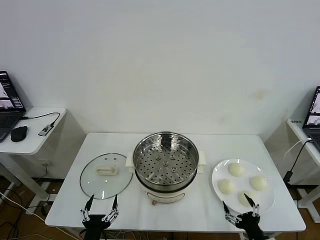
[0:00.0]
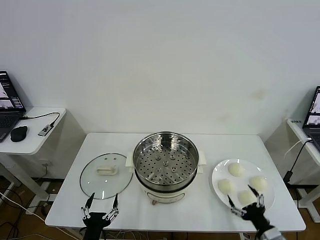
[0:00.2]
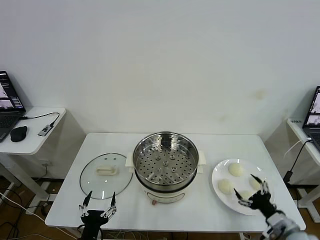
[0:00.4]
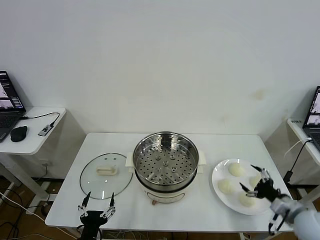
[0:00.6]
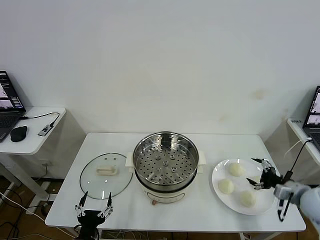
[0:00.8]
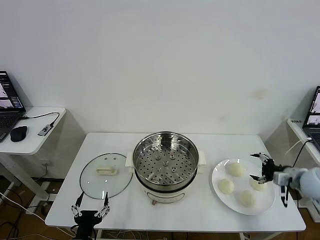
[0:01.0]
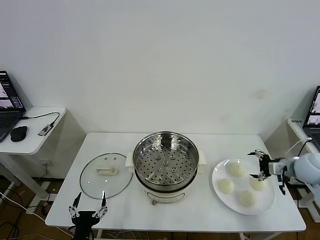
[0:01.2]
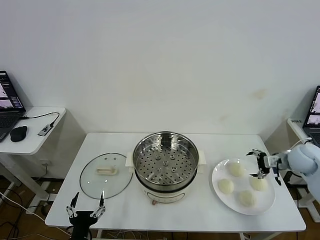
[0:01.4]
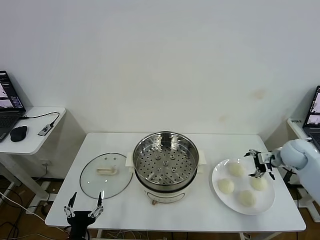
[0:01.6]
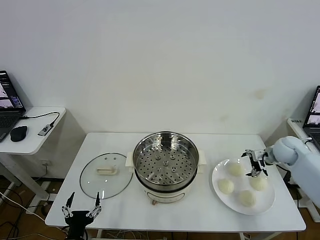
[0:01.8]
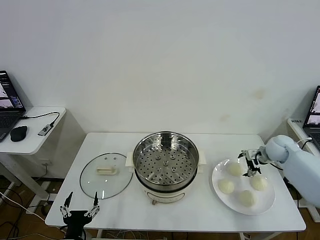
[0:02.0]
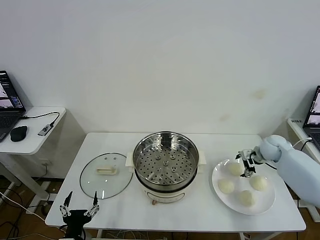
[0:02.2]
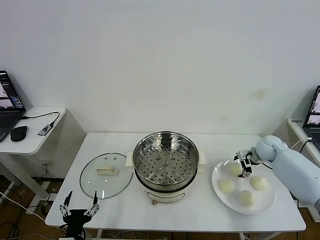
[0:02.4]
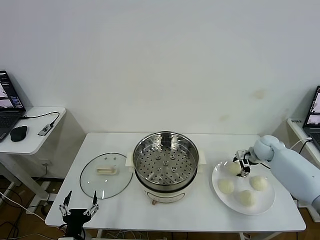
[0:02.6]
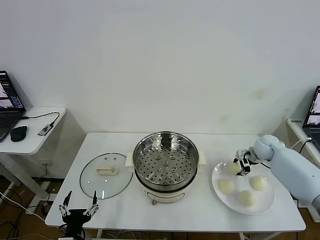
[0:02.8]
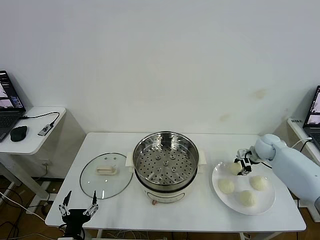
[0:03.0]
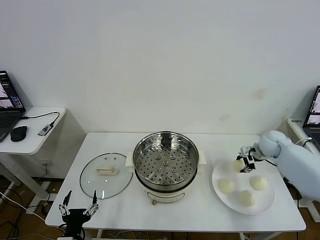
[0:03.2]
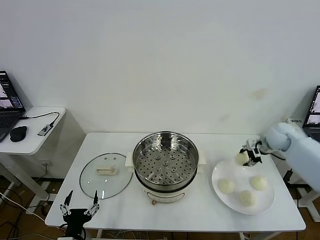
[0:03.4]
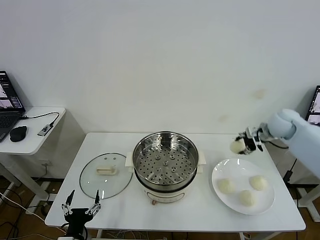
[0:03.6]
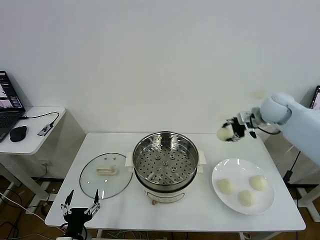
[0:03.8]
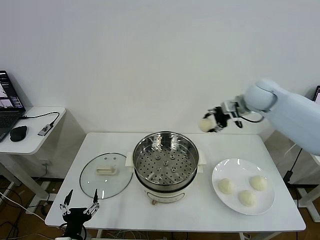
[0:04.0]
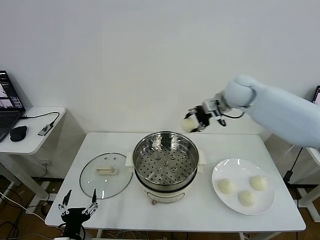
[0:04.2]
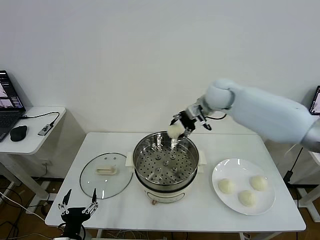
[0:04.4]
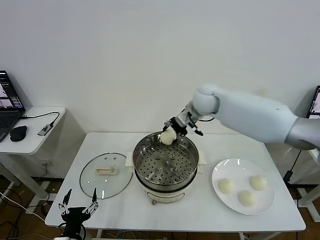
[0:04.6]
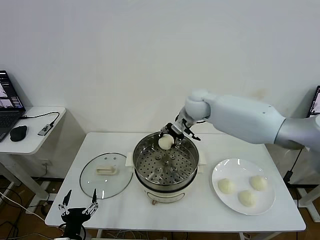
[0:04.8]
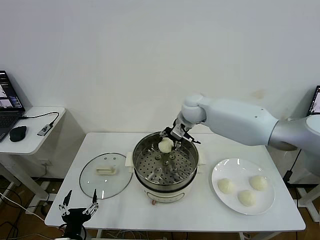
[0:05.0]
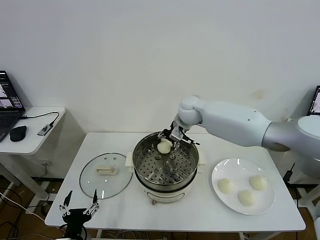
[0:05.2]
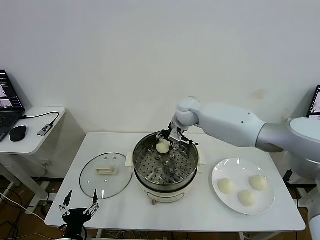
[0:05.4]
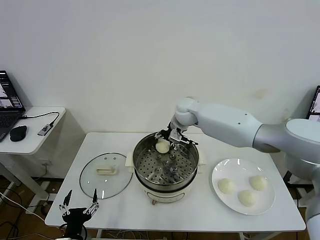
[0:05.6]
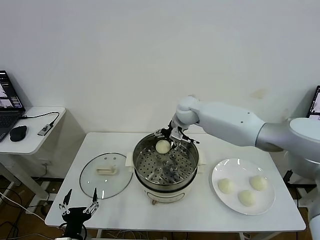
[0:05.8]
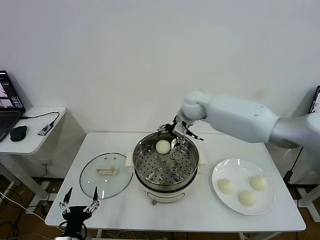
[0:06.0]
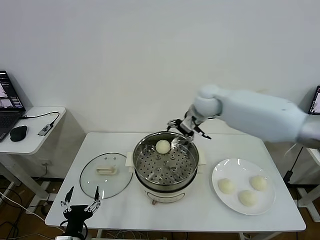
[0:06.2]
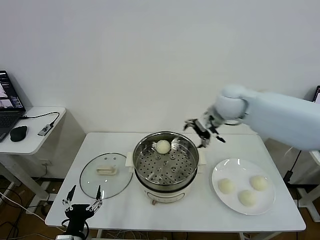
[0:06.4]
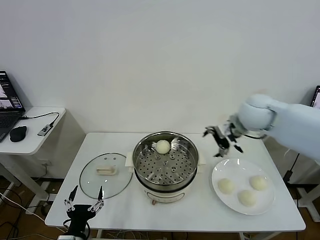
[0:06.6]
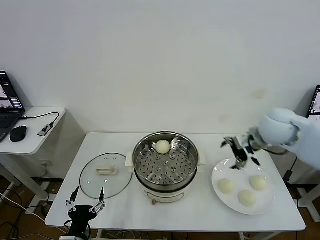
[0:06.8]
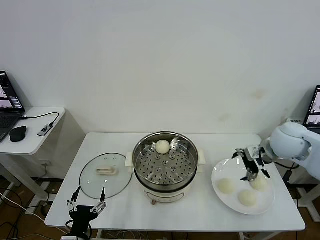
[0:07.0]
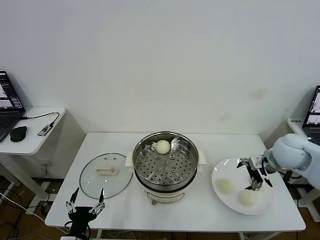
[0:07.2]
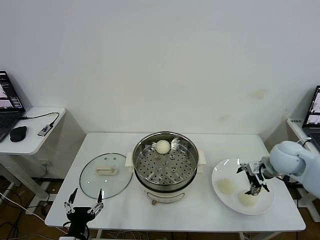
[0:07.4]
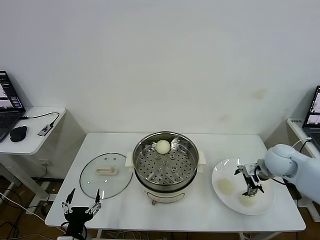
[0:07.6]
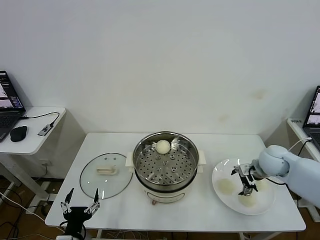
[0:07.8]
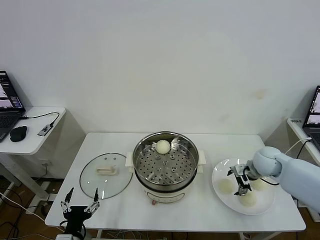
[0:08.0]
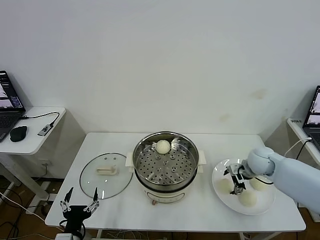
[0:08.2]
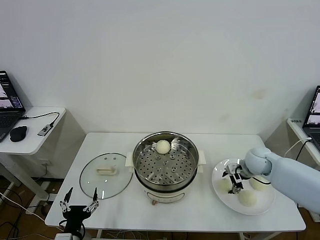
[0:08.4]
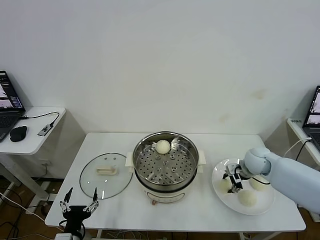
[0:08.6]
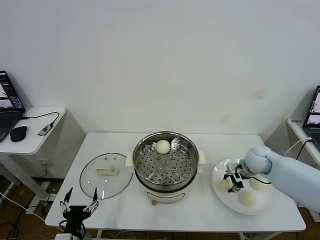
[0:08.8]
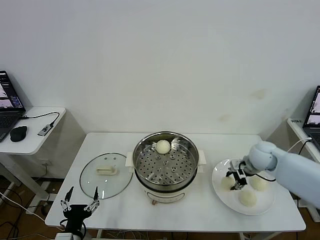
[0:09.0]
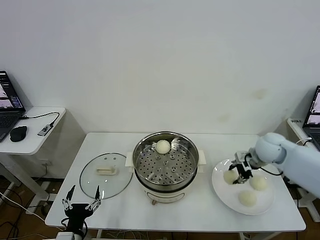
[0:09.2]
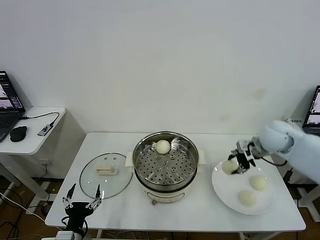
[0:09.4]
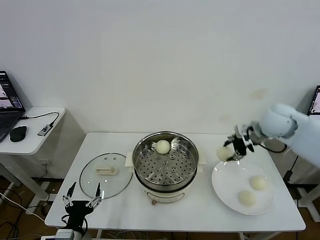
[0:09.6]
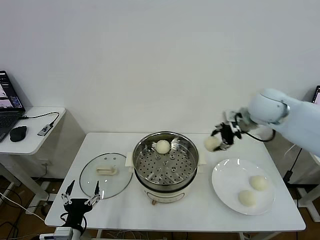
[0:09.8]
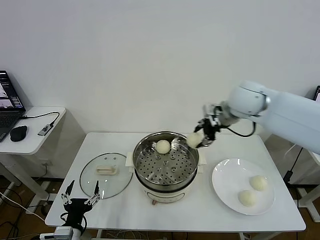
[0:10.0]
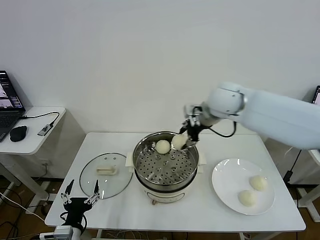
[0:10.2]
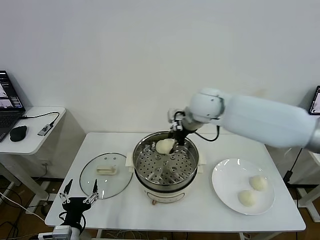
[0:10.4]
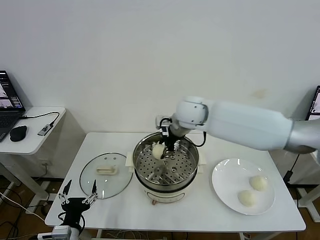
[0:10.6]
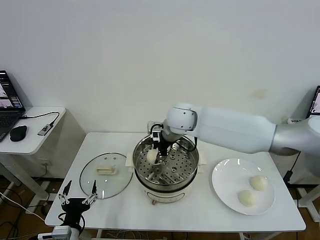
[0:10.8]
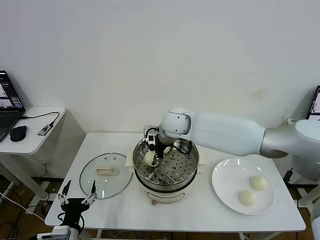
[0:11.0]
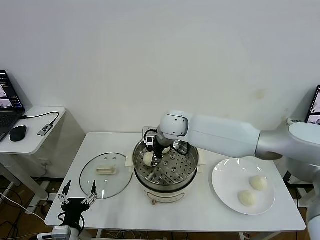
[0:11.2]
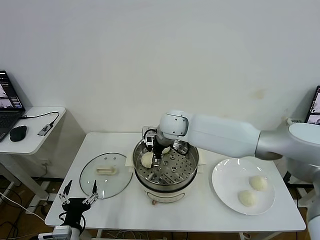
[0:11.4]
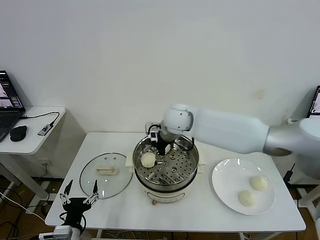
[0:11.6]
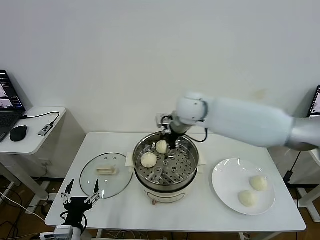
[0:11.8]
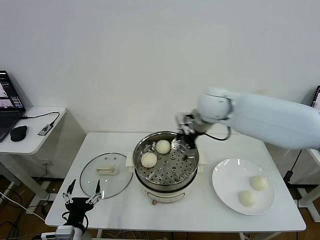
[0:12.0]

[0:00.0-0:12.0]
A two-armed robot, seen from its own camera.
Task of the whole recording: take steamed baozi put them in steamer then cover it.
Step, 0.0 to 2.6 s: Grasp the baozi in the plate with right gripper.
Step, 2.8 to 5.8 s: Place the baozi on the steamer with right gripper.
Step, 6.0 to 8.6 s: Grasp the baozi in the plate with right gripper.
Step, 8.8 to 11.4 s: Place the baozi on the steamer with right gripper.
1.6 to 3.0 s: The right gripper travels forward by approximately 5 cm, and closes its fingers.
3.0 to 4.4 s: The right gripper travels to the left and upward by some 30 cm.
4.4 to 6.0 s: The right gripper travels to the left by roughly 5 cm, and opens.
6.0 to 7.6 s: The right gripper is displaced to the right and backward by roughly 30 cm.
7.6 to 9.0 s: The right gripper changes place by approximately 5 cm, and closes its fingers.
9.0 to 10.4 s: The right gripper shifts about 30 cm to the left and upward.
10.4 to 12.0 s: The right gripper travels to the left and back again, about 10 cm each way, and opens up.

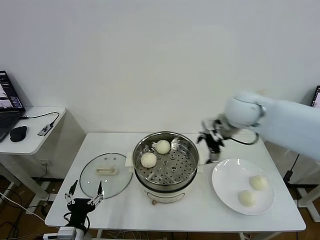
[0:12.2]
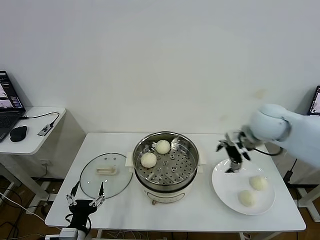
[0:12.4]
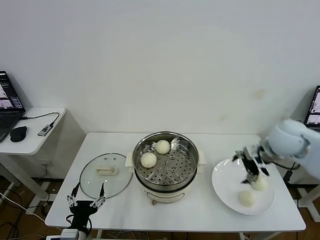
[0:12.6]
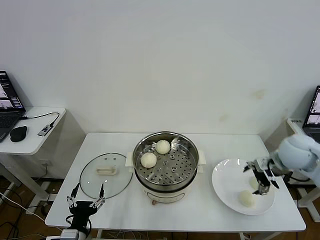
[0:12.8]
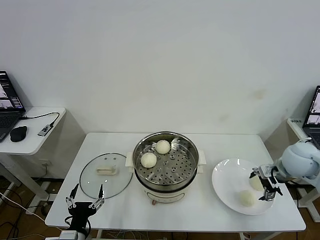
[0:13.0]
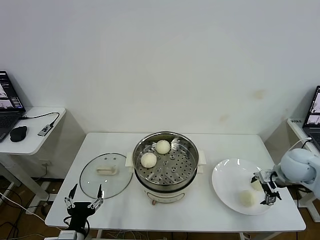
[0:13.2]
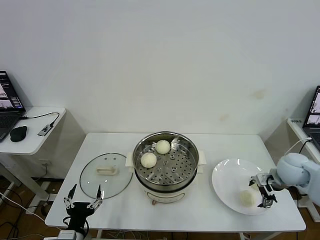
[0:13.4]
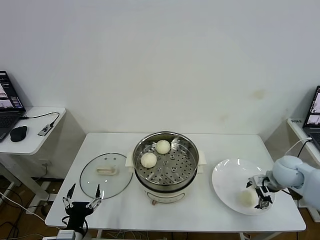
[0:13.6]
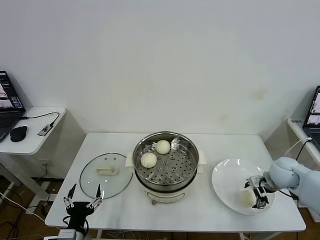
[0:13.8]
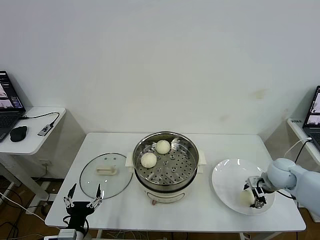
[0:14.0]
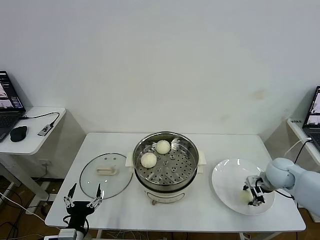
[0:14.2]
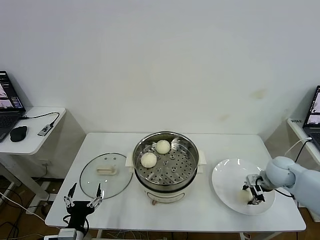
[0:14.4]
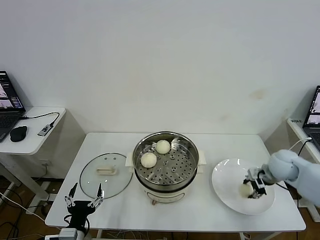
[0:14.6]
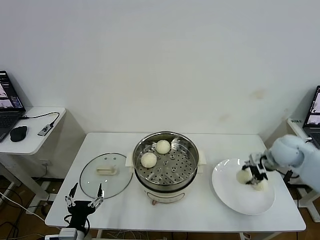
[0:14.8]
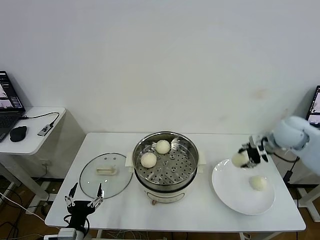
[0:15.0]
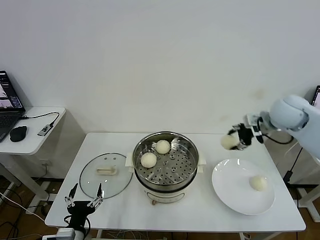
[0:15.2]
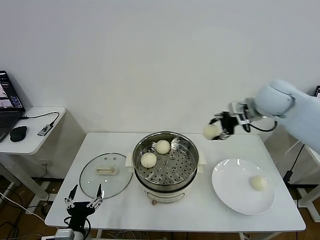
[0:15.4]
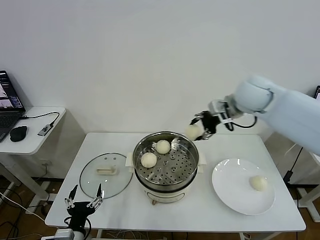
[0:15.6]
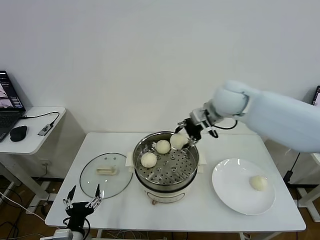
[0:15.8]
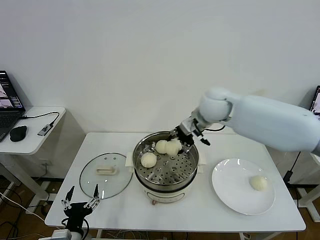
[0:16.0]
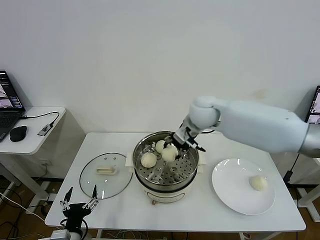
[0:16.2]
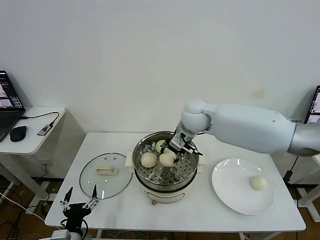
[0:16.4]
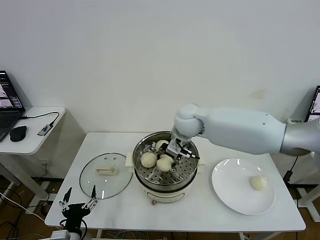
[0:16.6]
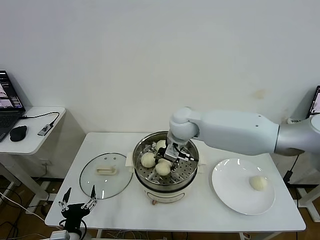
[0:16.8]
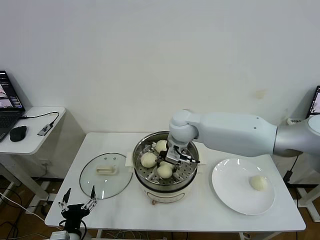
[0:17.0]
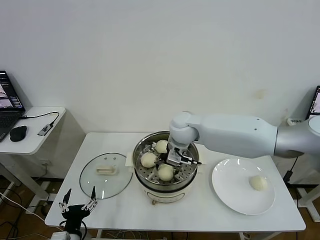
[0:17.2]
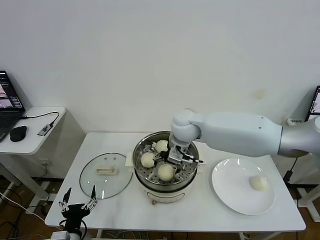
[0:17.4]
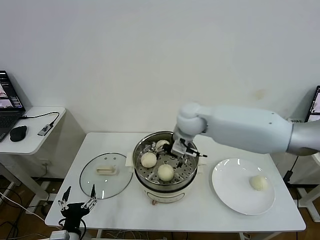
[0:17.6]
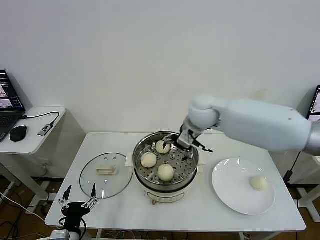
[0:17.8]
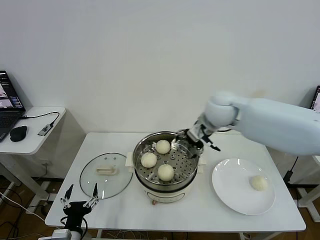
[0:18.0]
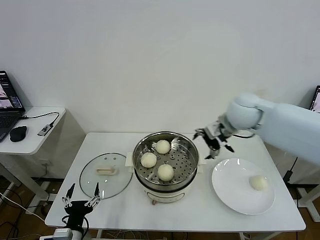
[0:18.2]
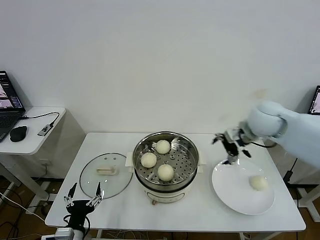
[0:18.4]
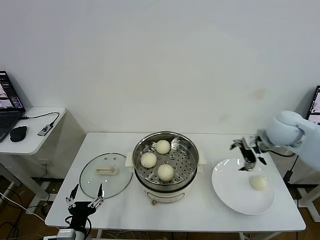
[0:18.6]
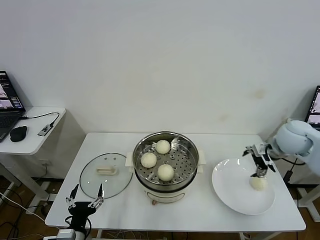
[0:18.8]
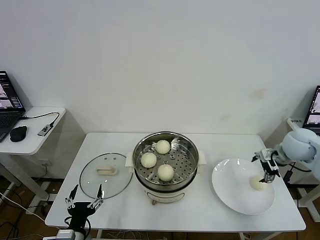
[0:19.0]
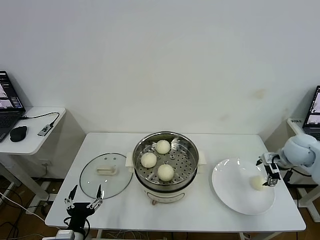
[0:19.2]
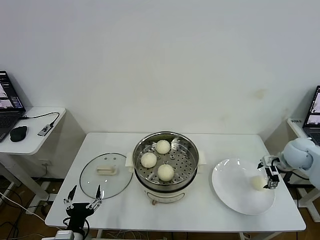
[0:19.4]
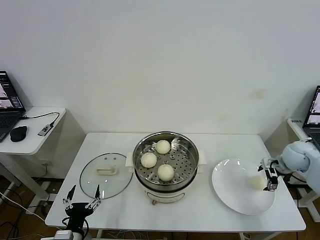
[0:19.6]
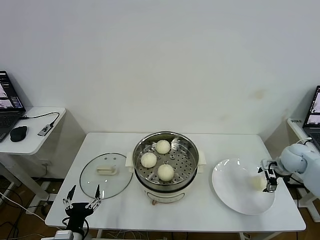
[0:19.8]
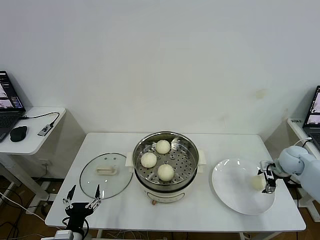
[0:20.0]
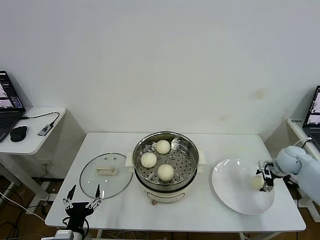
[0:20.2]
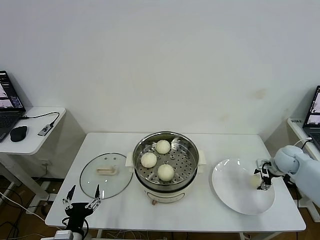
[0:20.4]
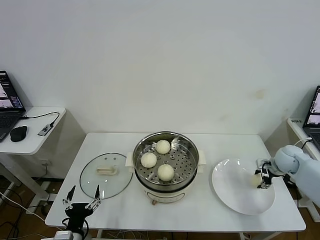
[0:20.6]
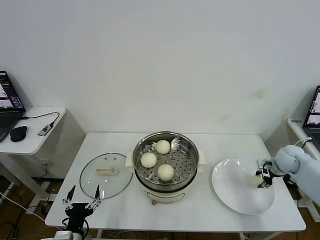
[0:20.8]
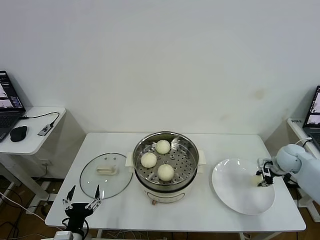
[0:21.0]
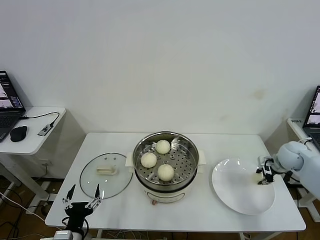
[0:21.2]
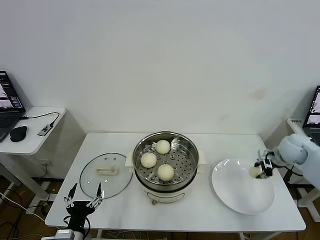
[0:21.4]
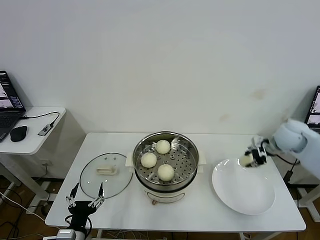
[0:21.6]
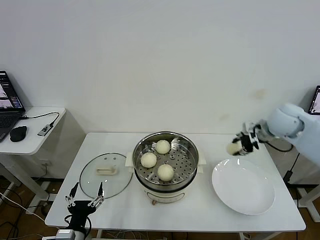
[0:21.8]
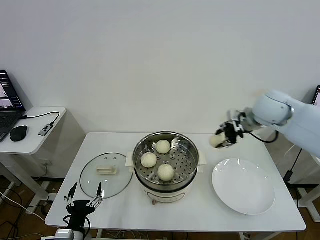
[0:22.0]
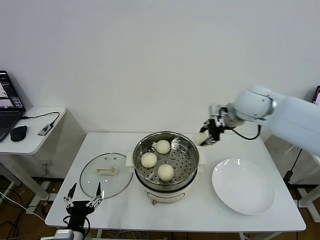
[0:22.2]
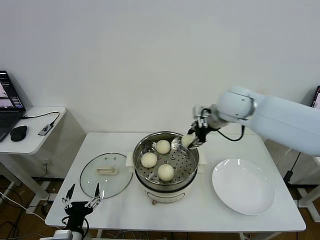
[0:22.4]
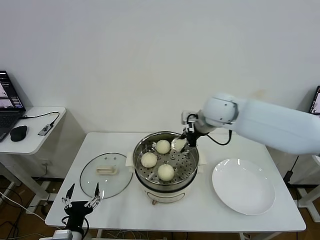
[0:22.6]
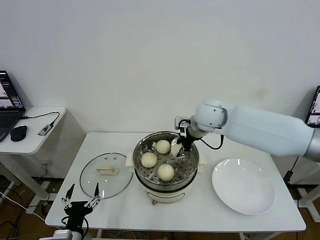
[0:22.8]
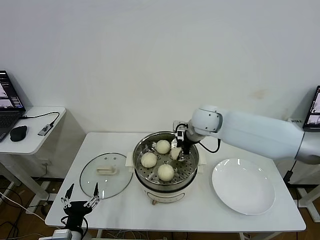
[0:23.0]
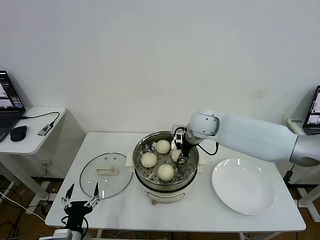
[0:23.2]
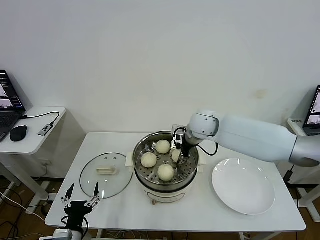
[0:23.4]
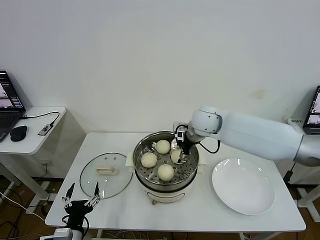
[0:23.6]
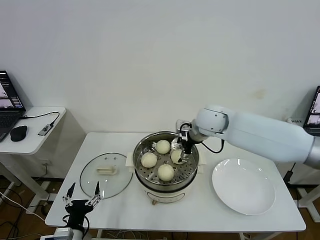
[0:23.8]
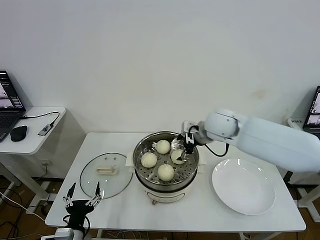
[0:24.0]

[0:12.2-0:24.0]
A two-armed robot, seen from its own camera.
Task of the whole recording: take steamed baozi put them in steamer then cover it.
Step, 12.2 to 14.2 s: Grasp the baozi in the plate with right gripper.
Step, 14.4 to 17.4 s: Place the baozi on the steamer with right gripper.
Step, 17.6 to 20.6 s: Grasp the baozi in the plate with right gripper.
Step, 20.8 to 23.8 s: Place the baozi on the steamer with right gripper.
12.2 to 13.6 s: The right gripper travels downward and to the right by approximately 25 cm.
13.6 to 15.2 s: The right gripper is displaced upward and forward by about 20 cm, and closes.
15.2 to 16.6 s: The right gripper goes roughly 25 cm to the left.
16.6 to 18.2 s: The right gripper heads to the right, covering about 15 cm, and opens its fingers.
18.2 to 19.6 s: The right gripper goes about 30 cm to the right and downward.
19.6 to 21.0 s: The right gripper closes.
21.0 to 22.6 s: The right gripper heads to the left and upward, covering roughly 35 cm.
22.6 to 24.0 s: The right gripper opens.
